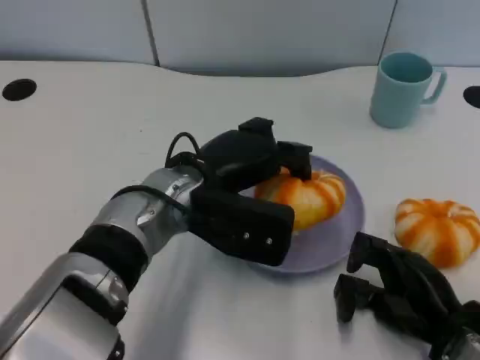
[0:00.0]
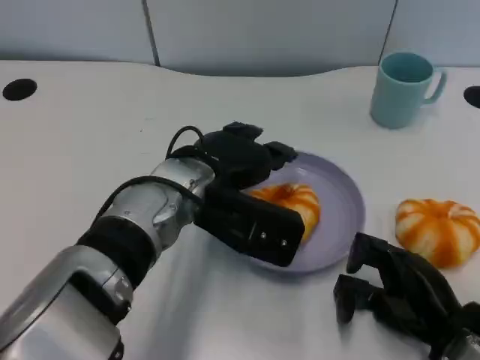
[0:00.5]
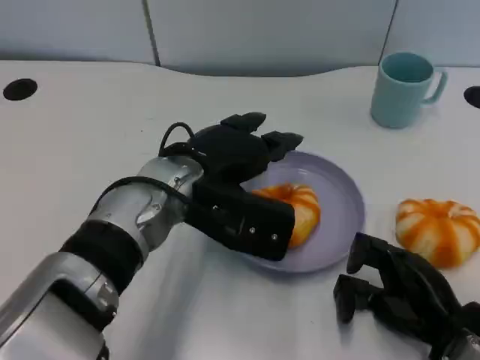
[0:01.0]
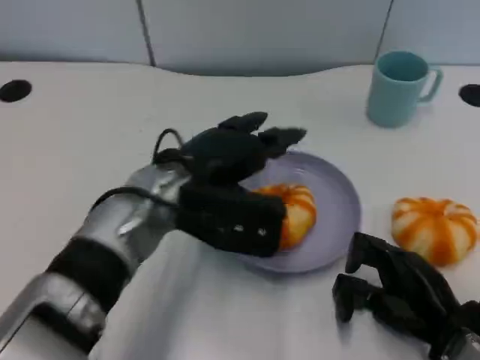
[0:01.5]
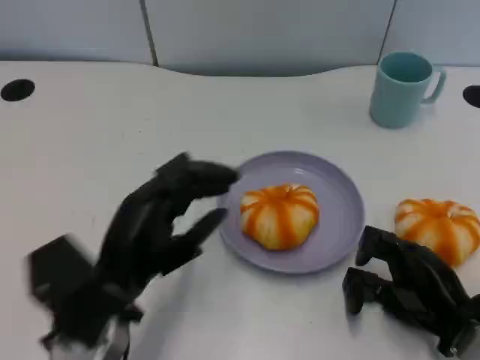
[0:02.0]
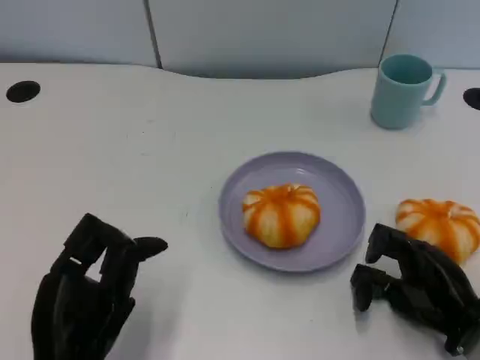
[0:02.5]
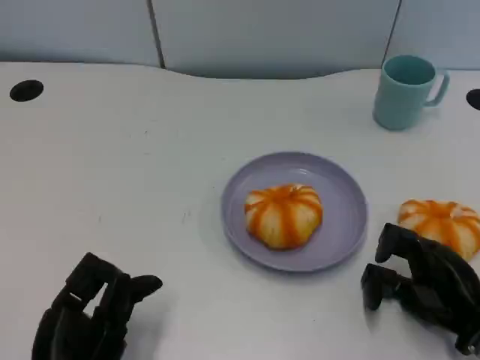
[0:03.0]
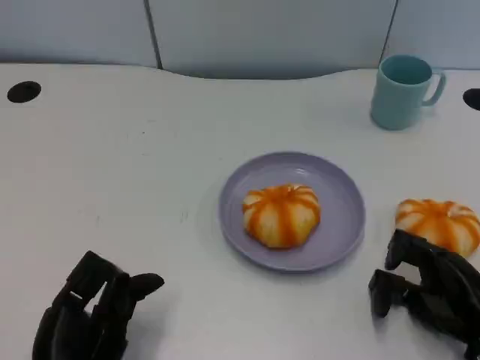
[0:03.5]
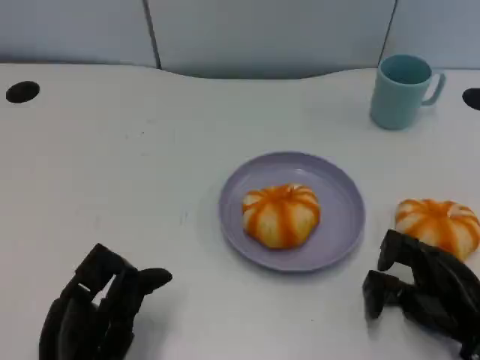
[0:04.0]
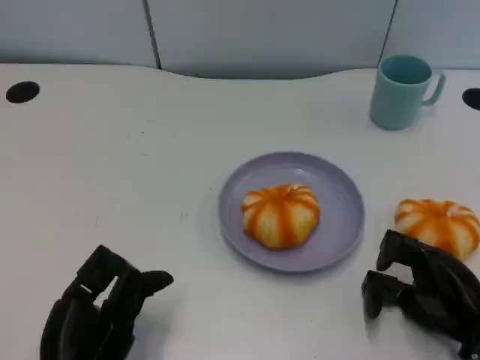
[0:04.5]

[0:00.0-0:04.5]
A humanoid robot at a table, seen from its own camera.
Task of the whole recording: Grasp the bread from the table and place it into the plate.
0:00.0 to 0:02.0: The left hand shifts some 15 cm backward and to the left.
0:02.0 to 0:04.5: The left hand travels backward by roughly 5 cm.

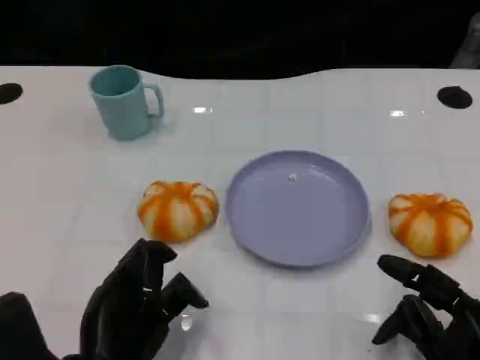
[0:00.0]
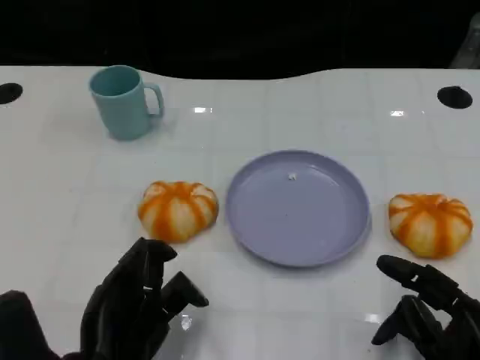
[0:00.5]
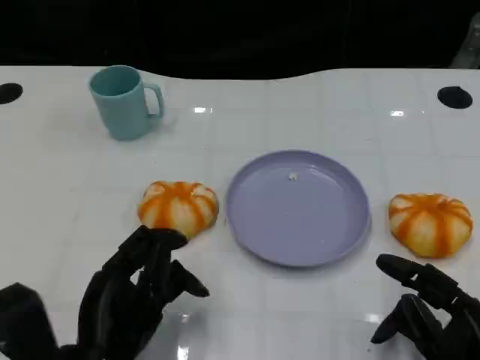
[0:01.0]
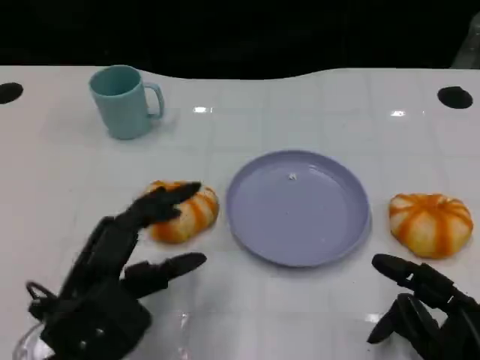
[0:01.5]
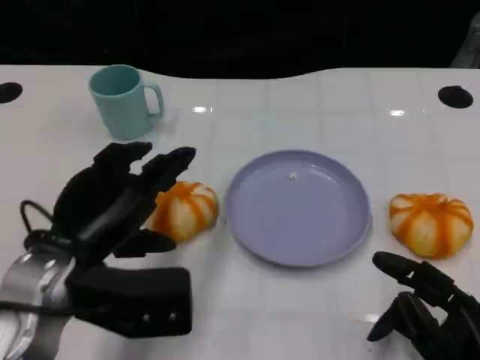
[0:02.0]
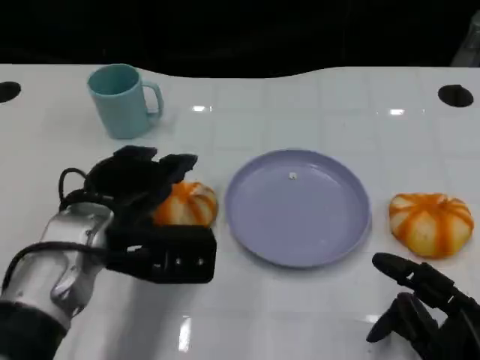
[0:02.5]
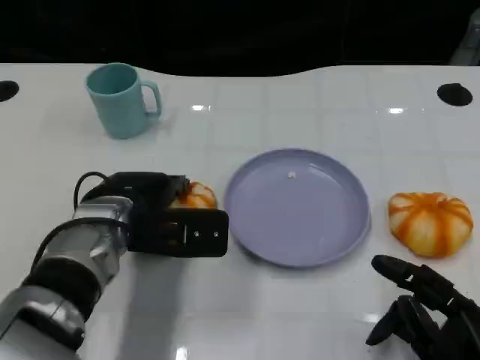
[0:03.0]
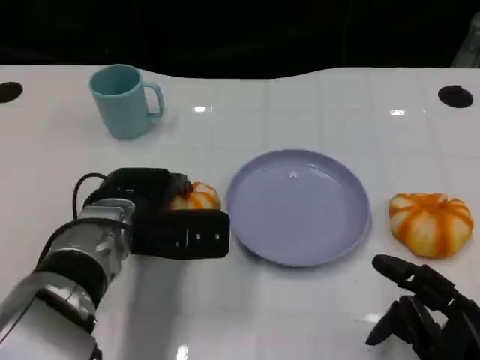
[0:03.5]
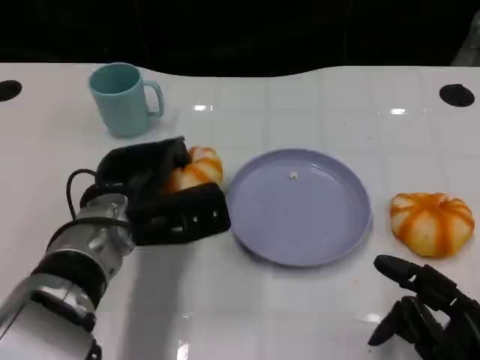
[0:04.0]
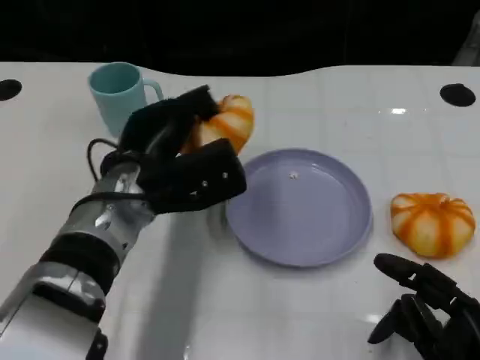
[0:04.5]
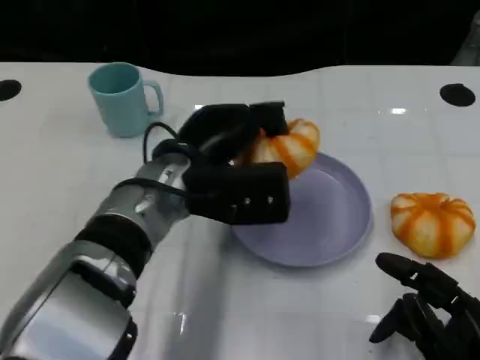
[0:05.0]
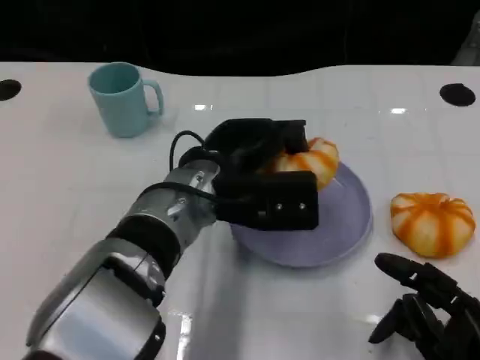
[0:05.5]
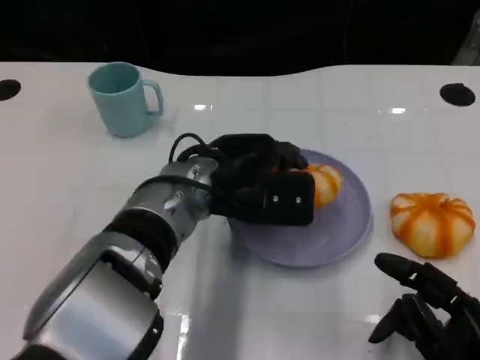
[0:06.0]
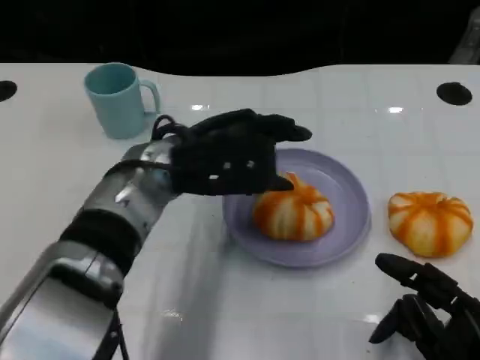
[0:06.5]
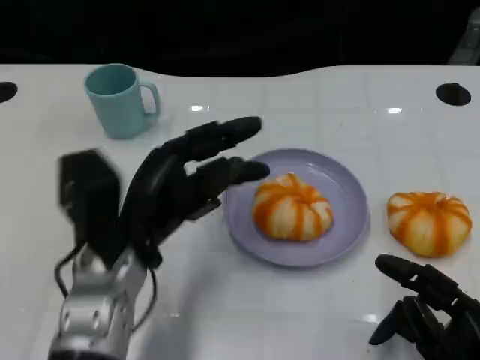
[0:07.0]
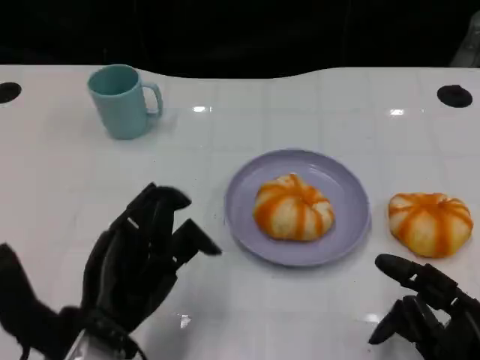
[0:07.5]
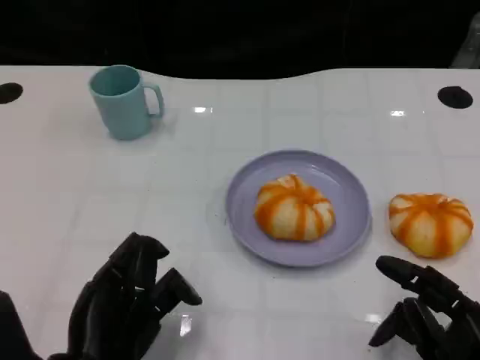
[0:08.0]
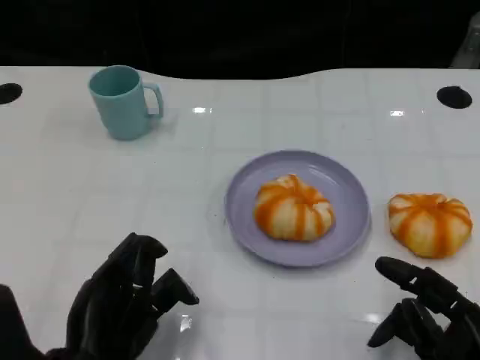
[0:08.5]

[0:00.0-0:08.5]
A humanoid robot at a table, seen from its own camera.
Task of the whole recording: Grasp the bread from the table and place it into the plate.
0:00.0 to 0:02.0: The left hand shifts roughly 10 cm forward and upward.
0:02.0 to 0:04.0: The left hand heads forward, covering roughly 10 cm.
0:04.0 to 0:06.5: The left hand is displaced upward by approximately 5 cm.
0:06.5 to 0:08.5: The left hand shifts approximately 20 cm backward, downward and to the left.

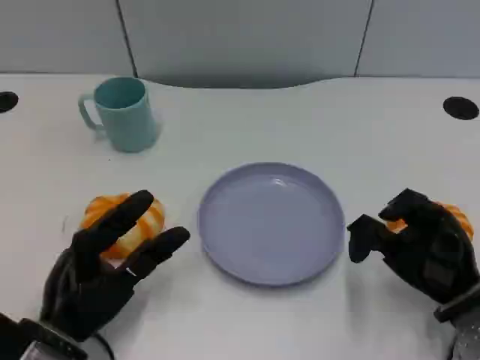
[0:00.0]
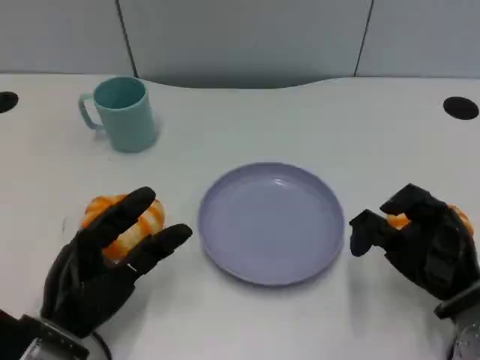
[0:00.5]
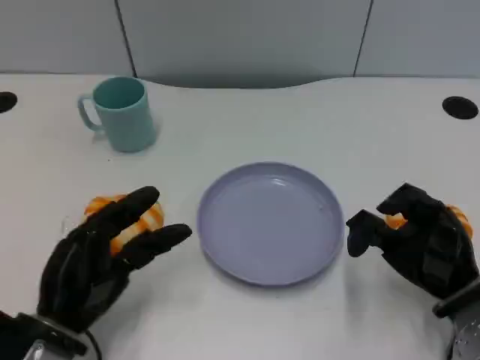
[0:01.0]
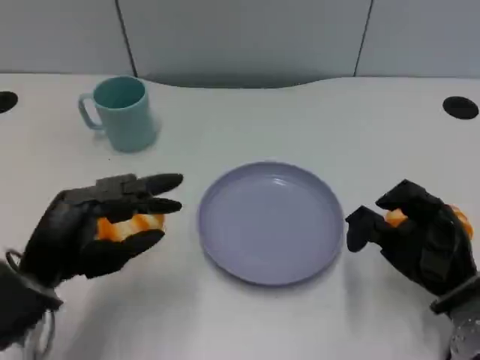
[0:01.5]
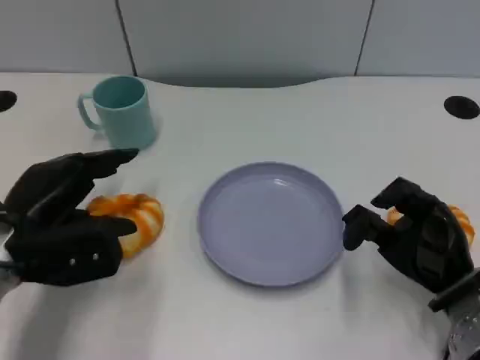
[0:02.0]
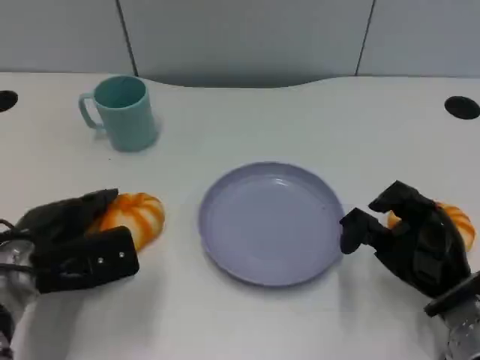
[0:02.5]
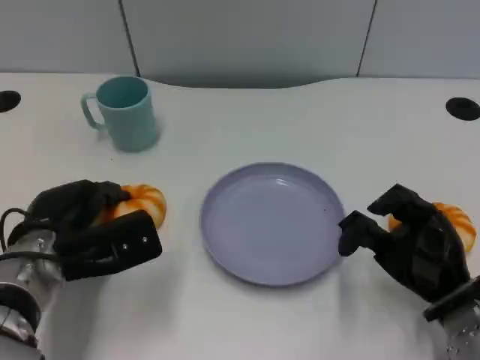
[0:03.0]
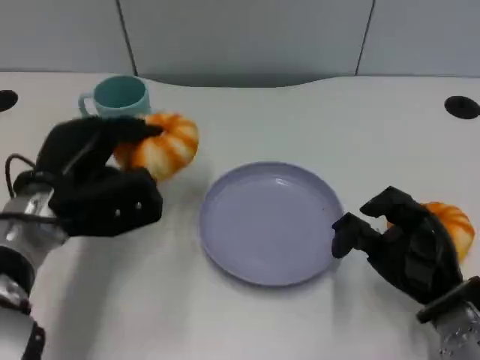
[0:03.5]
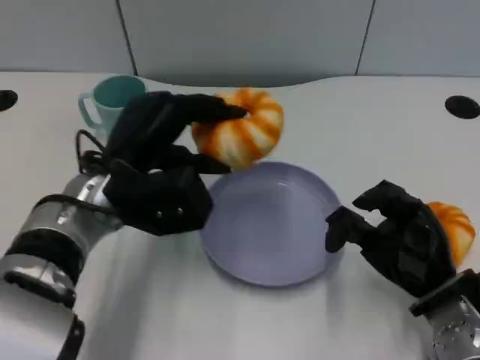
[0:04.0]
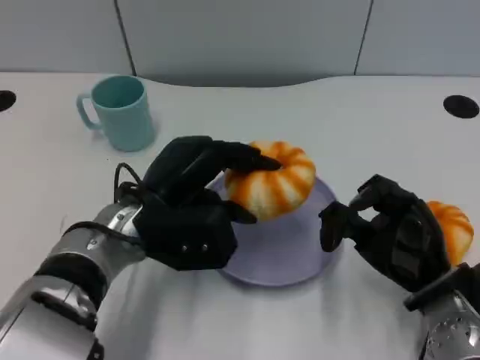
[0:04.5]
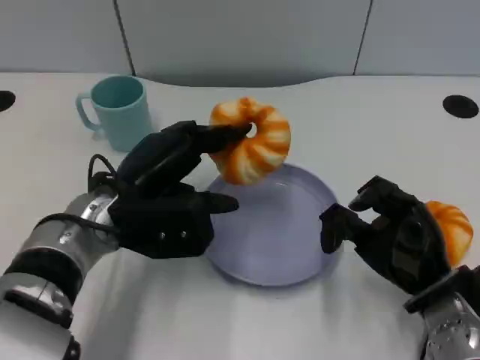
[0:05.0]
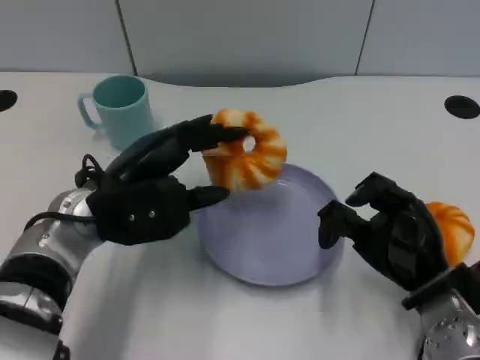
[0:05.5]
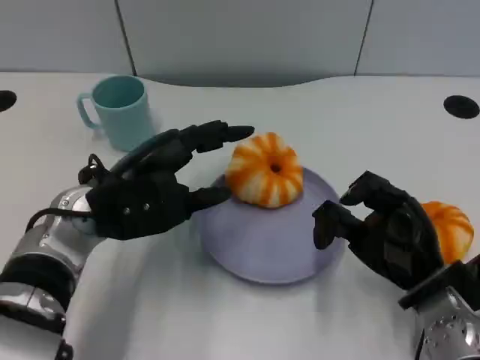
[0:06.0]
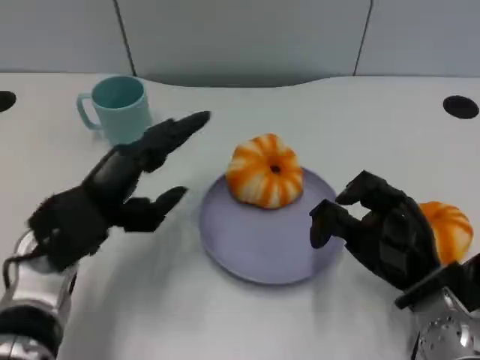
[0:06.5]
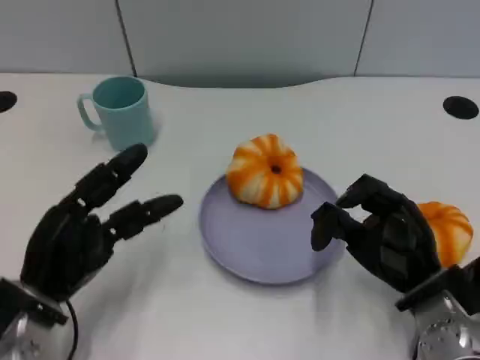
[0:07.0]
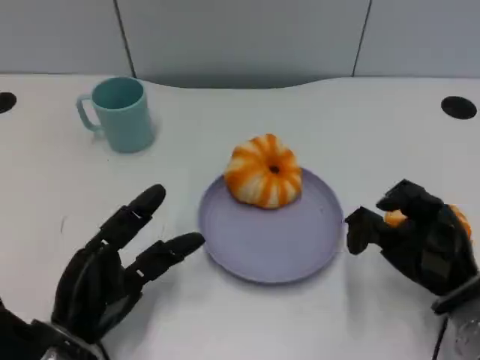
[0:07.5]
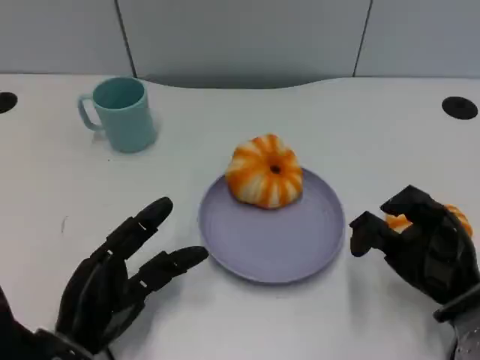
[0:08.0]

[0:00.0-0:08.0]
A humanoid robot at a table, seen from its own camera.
Task of the whole recording: Grasp the bread from the table and place it into the plate.
0:00.0 to 0:02.0: The left hand moves forward and upward, about 10 cm.
0:02.0 to 0:04.0: The left hand goes about 10 cm to the right.
0:06.0 to 0:08.0: The left hand moves backward and downward, some 15 cm.

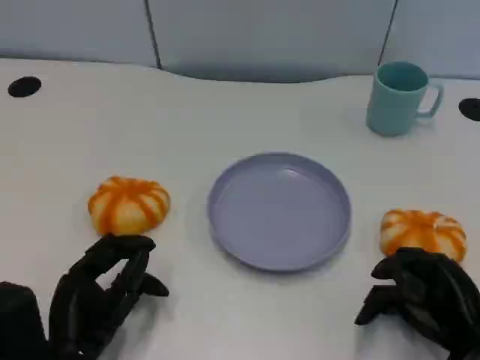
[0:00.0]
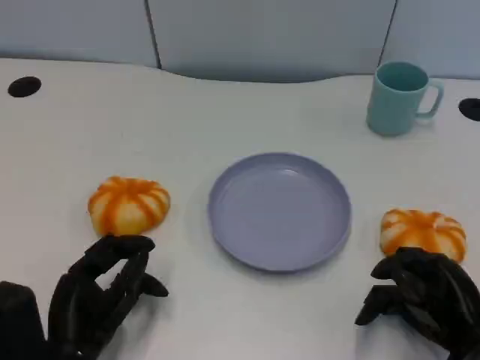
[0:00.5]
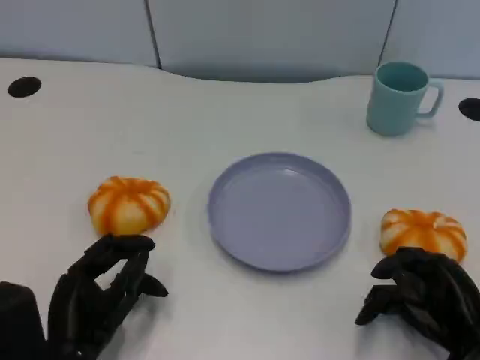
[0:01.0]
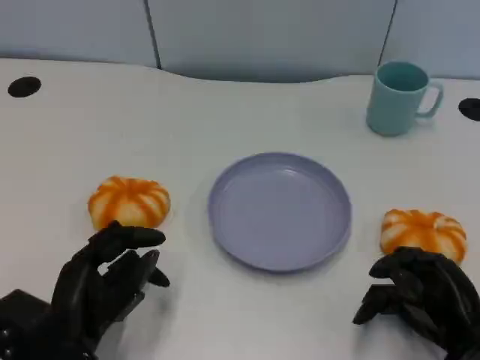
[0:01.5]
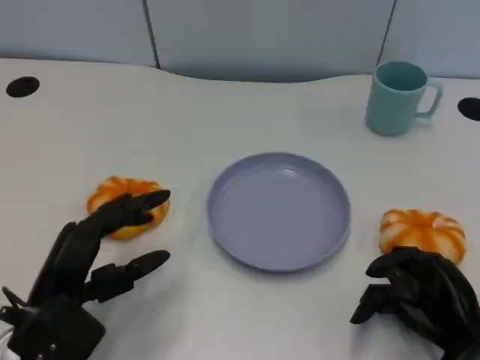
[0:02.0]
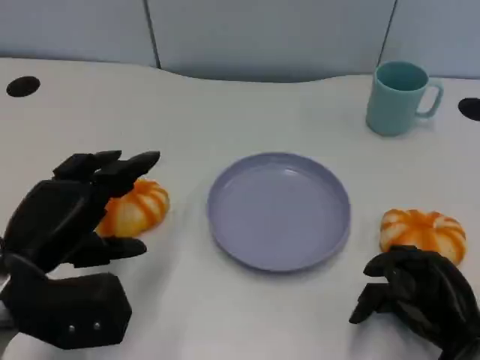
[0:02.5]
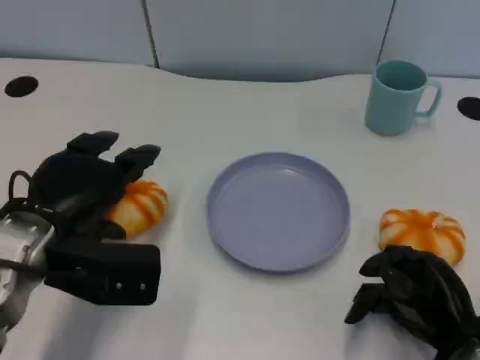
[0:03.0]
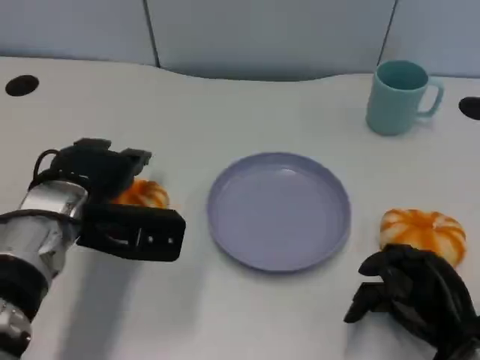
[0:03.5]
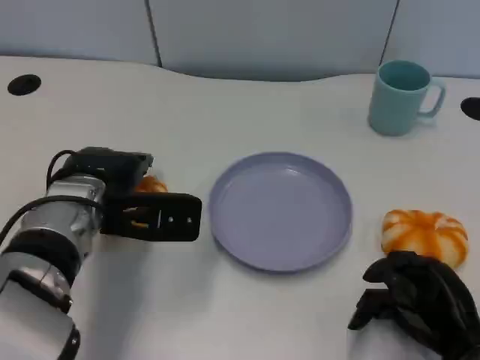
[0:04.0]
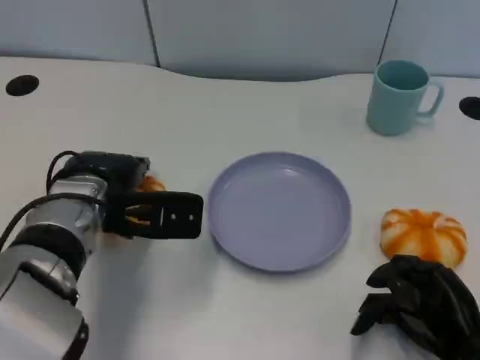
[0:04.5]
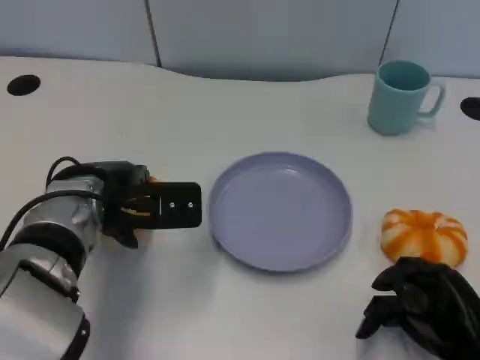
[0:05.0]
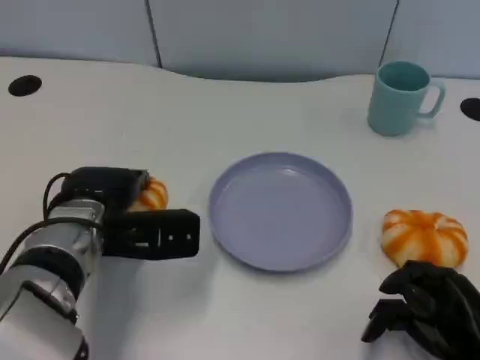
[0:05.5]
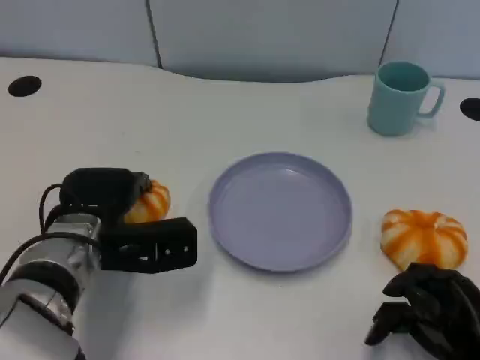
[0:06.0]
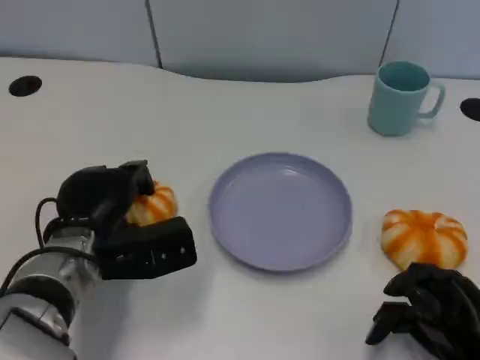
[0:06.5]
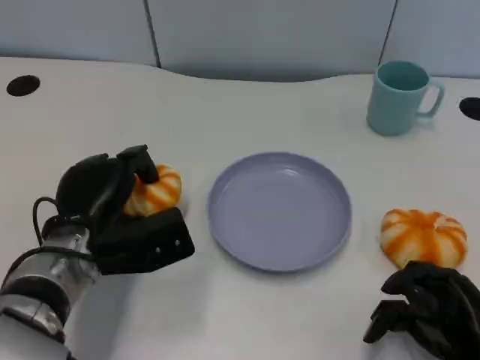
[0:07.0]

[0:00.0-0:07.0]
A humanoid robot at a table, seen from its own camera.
Task of the whole recording: Grasp the bread from the table and place it into the plate.
0:00.0 to 0:02.0: The left hand moves approximately 5 cm.
0:02.0 to 0:03.5: The left hand heads forward, covering about 10 cm.
0:03.5 to 0:05.0: The hands stay close to where they were, moving slightly.
